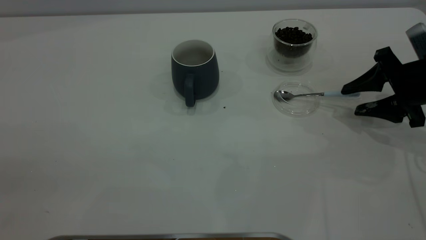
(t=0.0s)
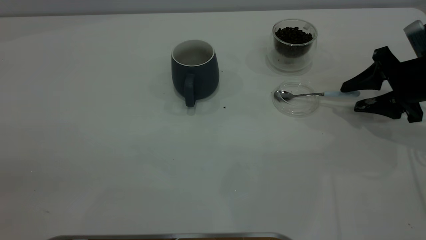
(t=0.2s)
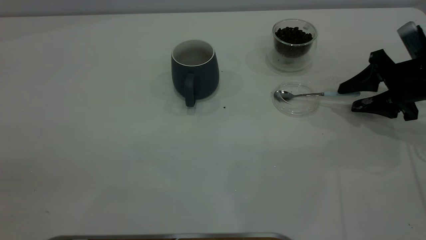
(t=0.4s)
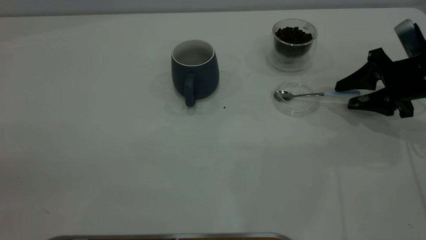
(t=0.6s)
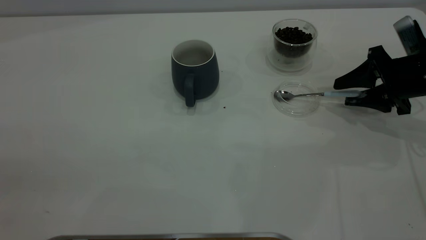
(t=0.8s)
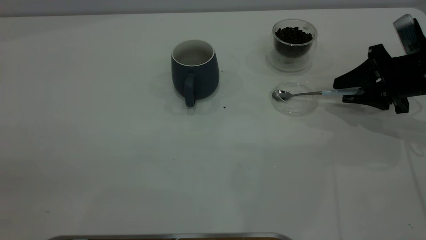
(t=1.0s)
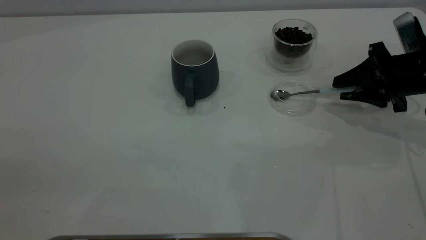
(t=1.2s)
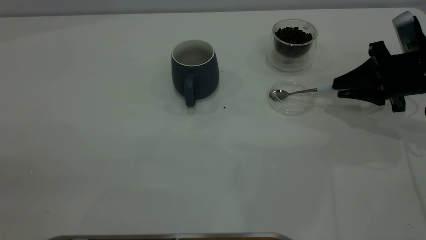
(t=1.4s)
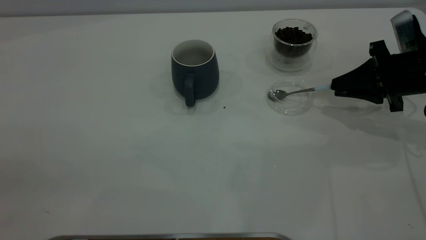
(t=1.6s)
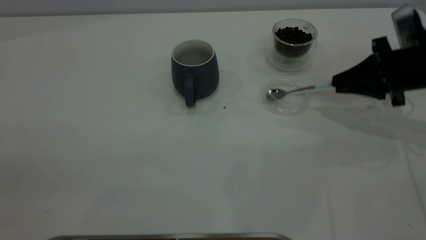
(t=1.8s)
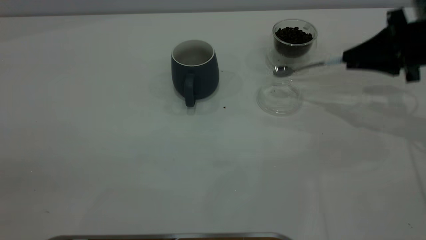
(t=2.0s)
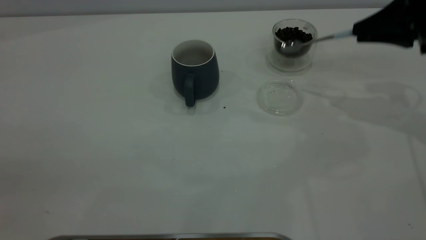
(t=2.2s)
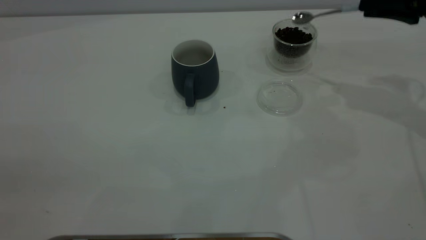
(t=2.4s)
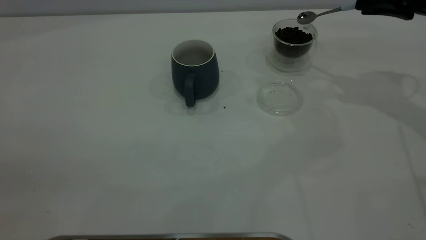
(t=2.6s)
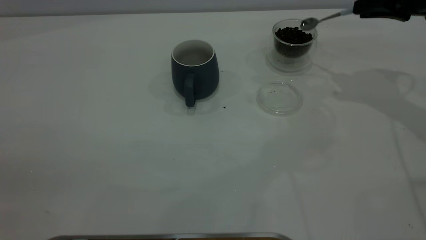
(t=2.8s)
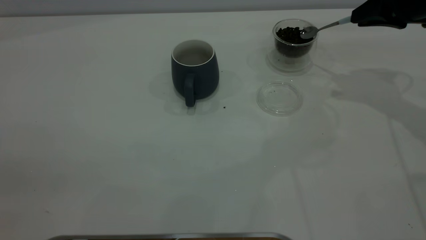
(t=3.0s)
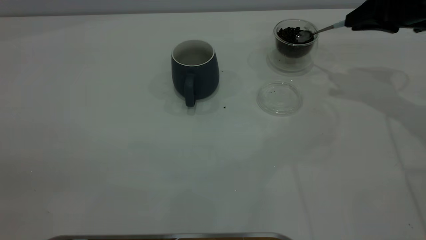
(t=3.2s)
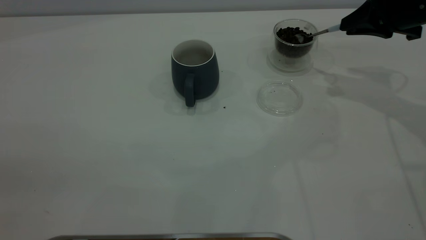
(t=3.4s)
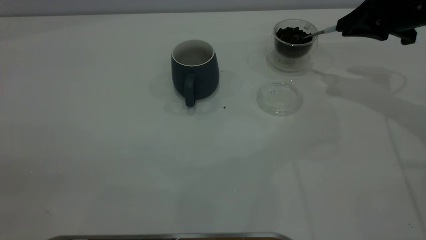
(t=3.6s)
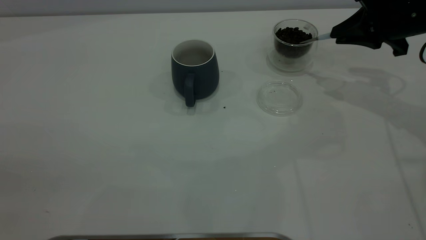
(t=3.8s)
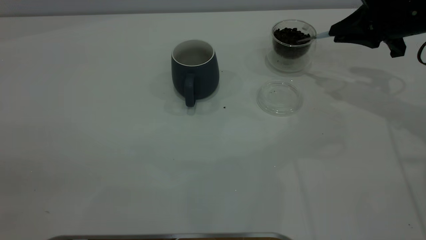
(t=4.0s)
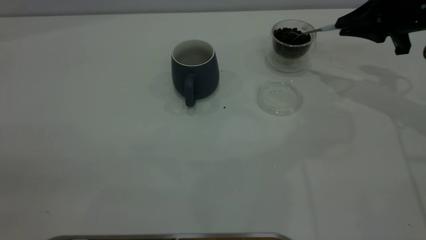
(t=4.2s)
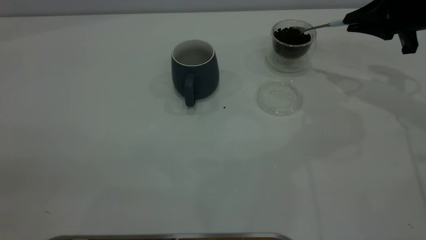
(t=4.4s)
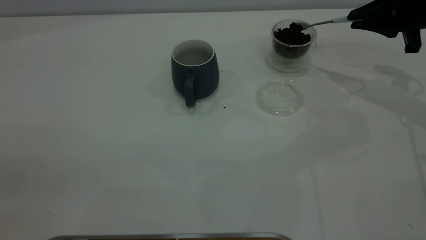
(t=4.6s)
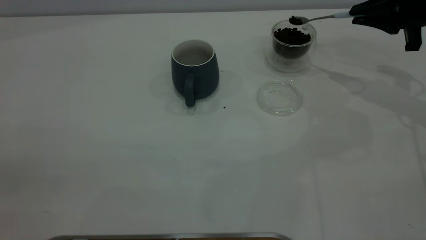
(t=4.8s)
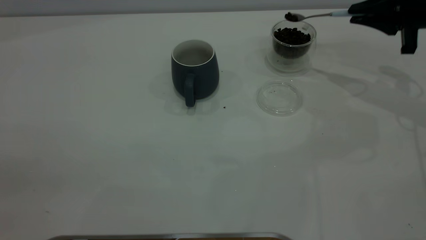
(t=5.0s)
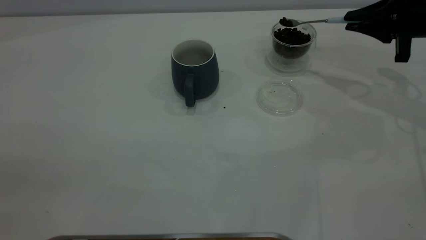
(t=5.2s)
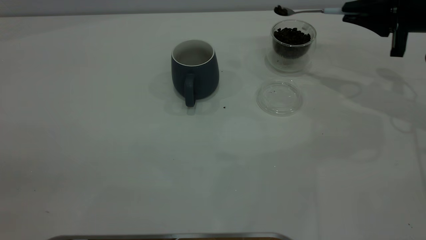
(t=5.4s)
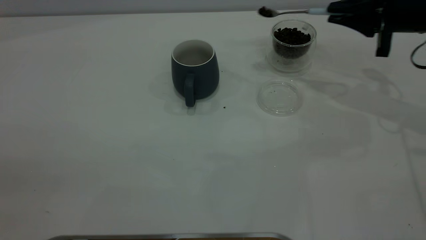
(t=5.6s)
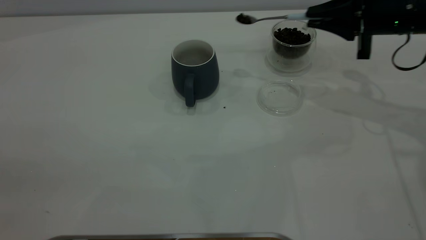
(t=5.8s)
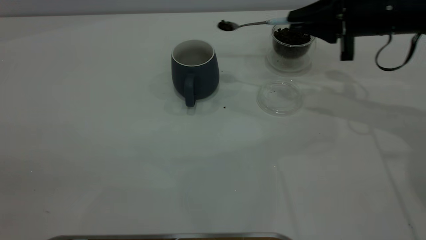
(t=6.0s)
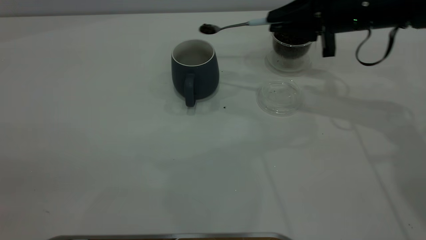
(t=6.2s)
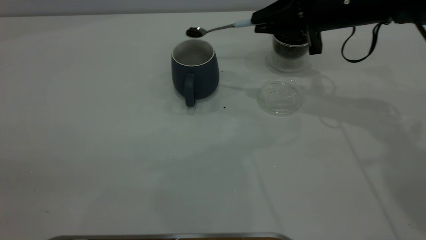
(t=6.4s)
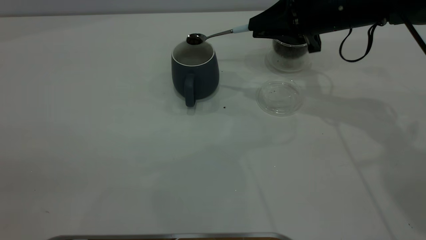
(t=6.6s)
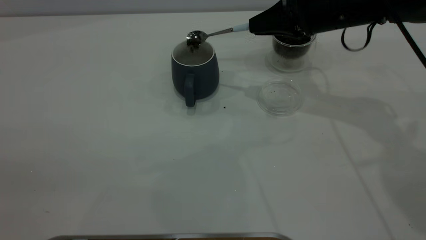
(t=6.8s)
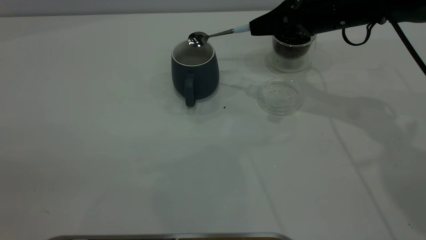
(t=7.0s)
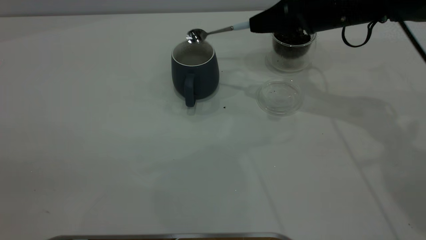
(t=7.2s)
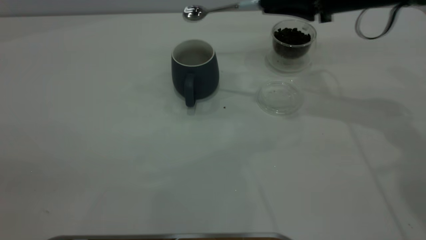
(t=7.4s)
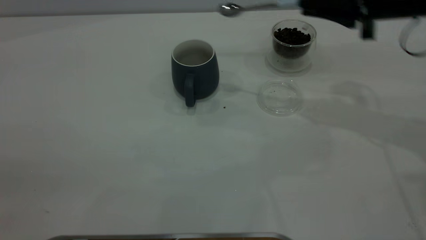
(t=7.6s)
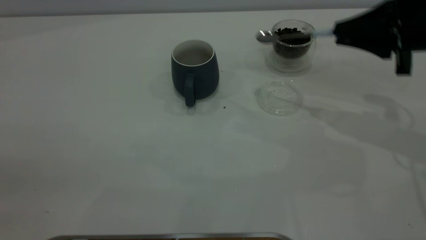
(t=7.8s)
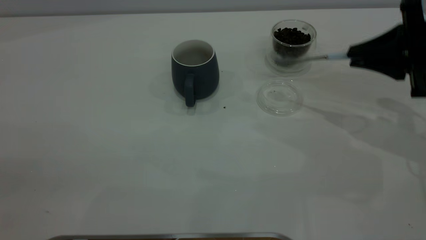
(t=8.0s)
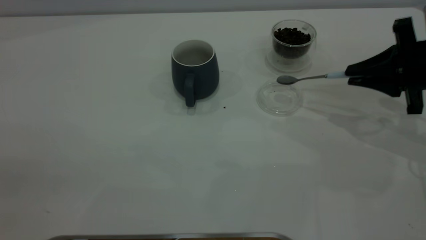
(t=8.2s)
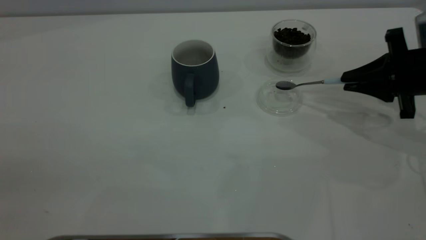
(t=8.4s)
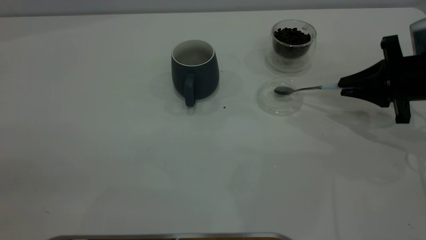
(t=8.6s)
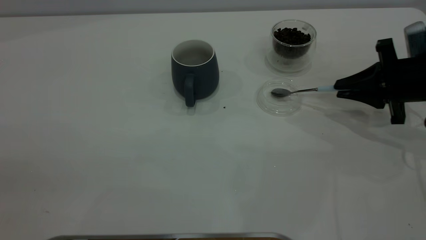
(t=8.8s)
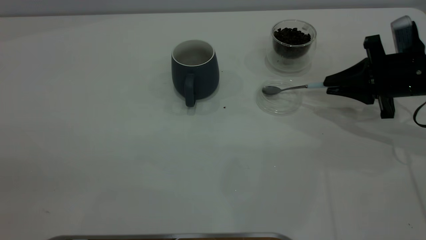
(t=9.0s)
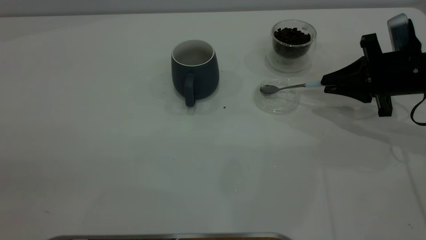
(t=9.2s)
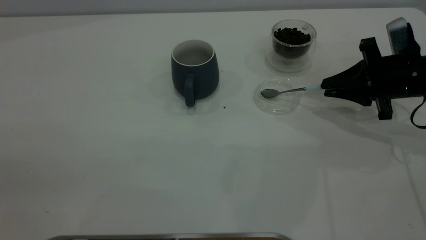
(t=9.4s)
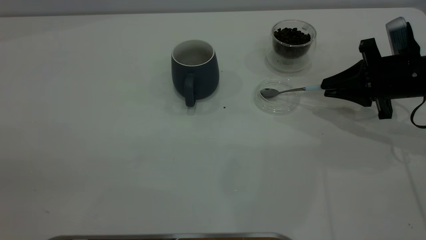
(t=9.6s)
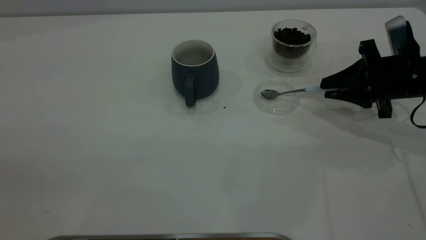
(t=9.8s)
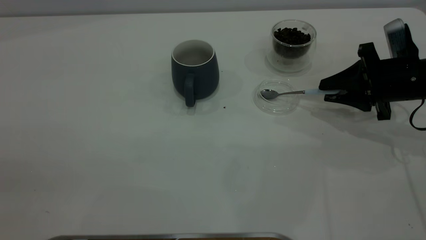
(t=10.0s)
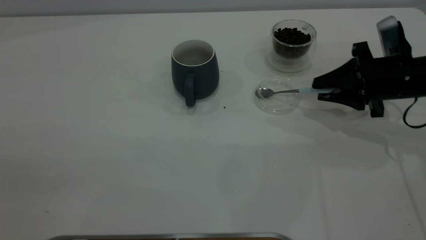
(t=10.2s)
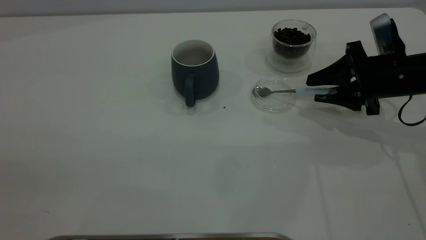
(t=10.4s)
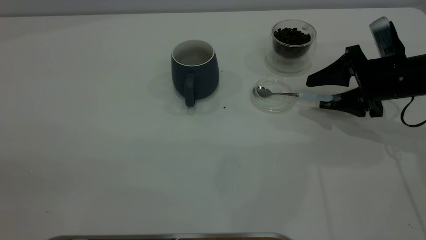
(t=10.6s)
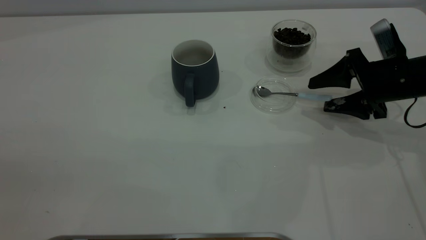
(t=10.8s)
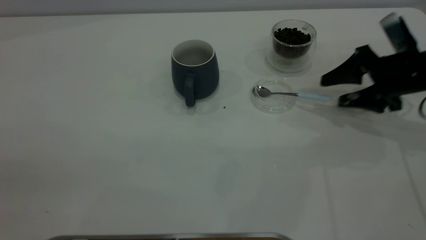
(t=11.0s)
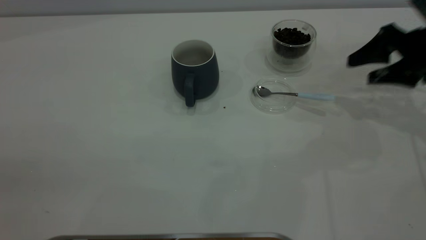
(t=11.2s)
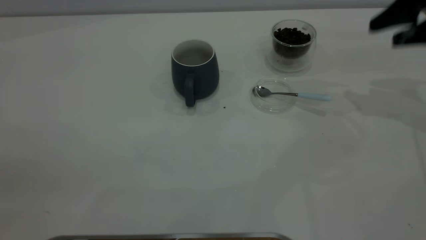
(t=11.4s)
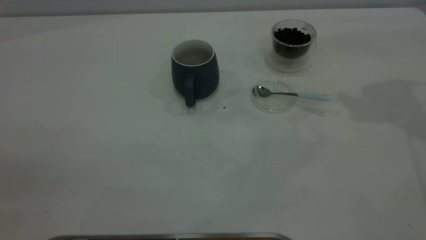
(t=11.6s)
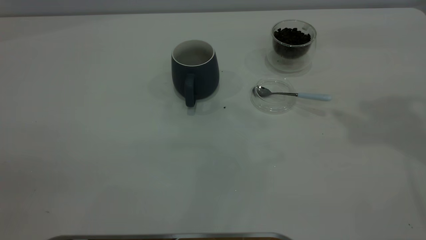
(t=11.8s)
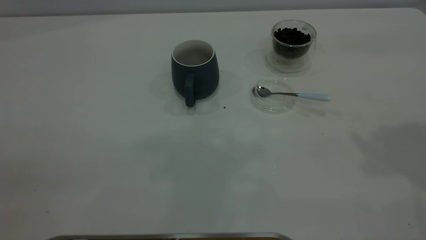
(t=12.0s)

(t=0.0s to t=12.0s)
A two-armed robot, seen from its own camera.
Task of the whole recording: the left gripper place the grey cup in the center of the table, the right gripper take the blue spoon from the cup lid and scoop out the coffee beans from the coffee cup and put them into the grey cup, the right gripper put the spoon back into the cup lid.
Step, t=0.0s - t=2.0s: Pick up the spoon.
Step, t=2.2s - t=7.2s: Scoop a spoonful of beans into the cup.
Step, t=7.4s - t=11.0s: Place the spoon back in its original place.
t=0.0s - t=1.6s: The right gripper closes.
t=1.6s - t=3.0s: The right gripper is displaced upward by some 10 cm.
t=4.4s - t=6.0s: The right gripper is displaced to the left by approximately 10 cm.
t=6.0s - t=7.6s: The right gripper moves about 5 cm to the left and comes back.
t=7.6s - t=9.0s: The right gripper moves downward, about 10 cm.
t=9.0s - t=10.4s: The right gripper opens.
t=10.4s - t=12.0s: The right gripper moves upward, some 35 cm.
